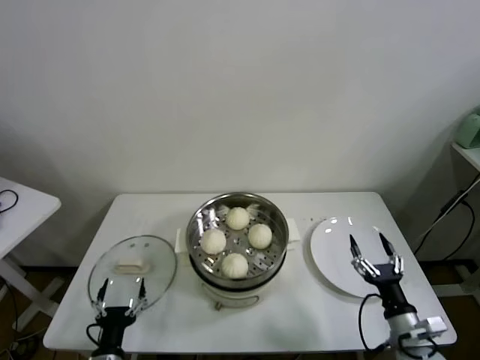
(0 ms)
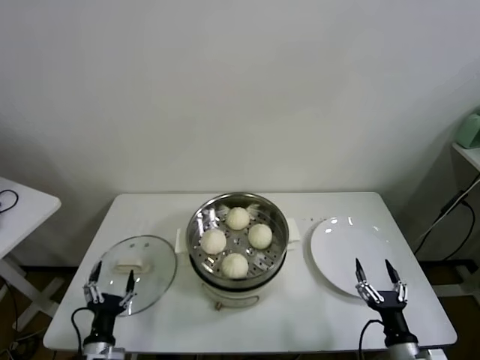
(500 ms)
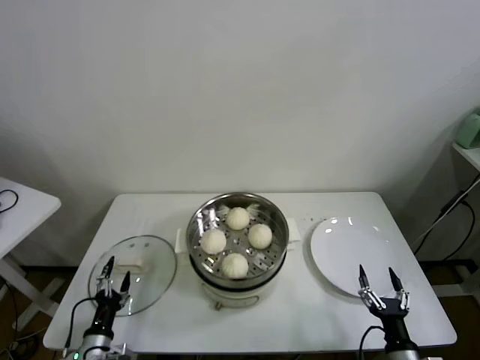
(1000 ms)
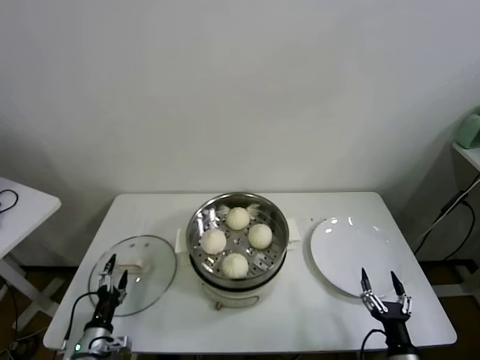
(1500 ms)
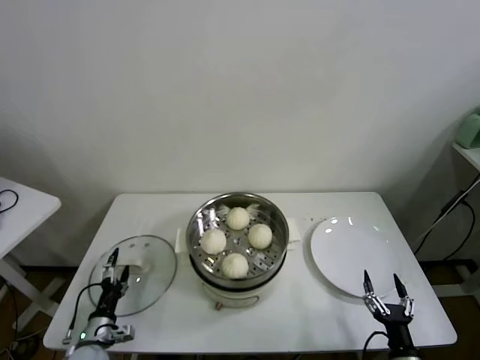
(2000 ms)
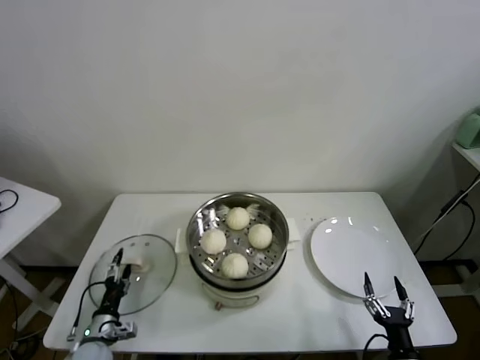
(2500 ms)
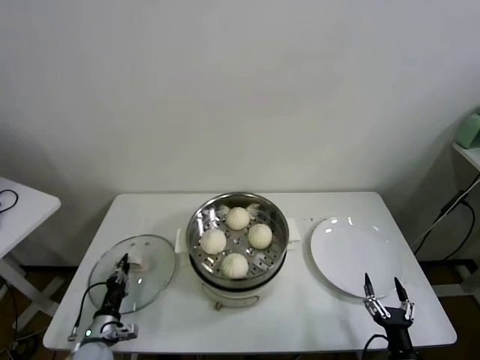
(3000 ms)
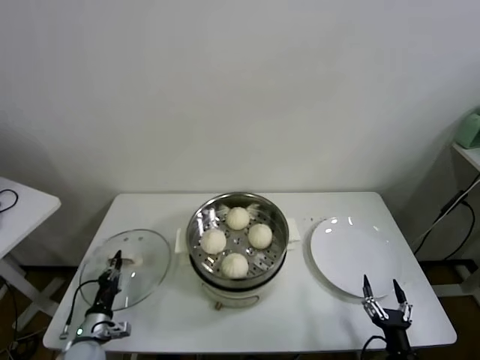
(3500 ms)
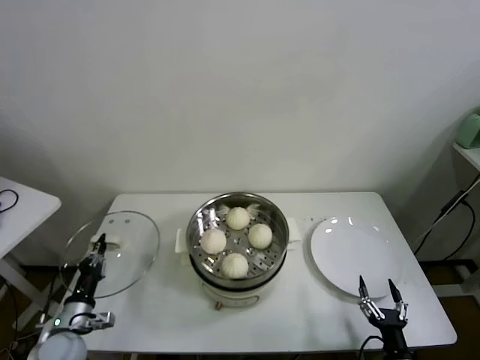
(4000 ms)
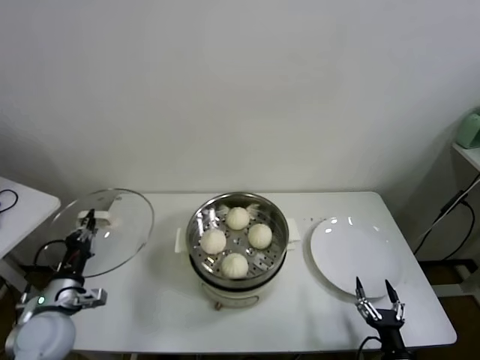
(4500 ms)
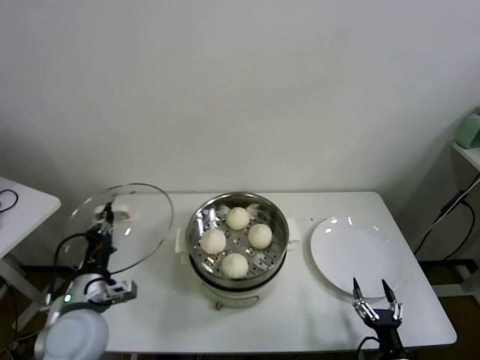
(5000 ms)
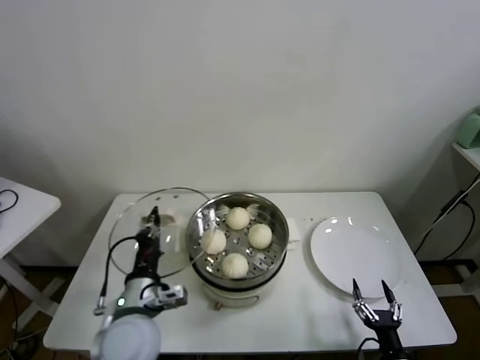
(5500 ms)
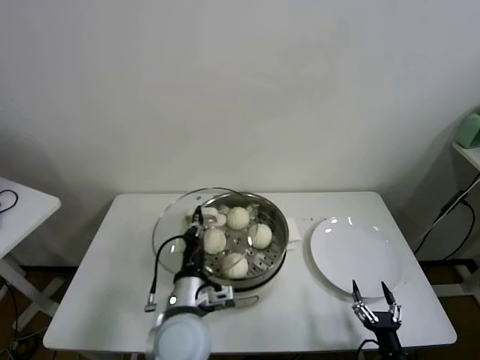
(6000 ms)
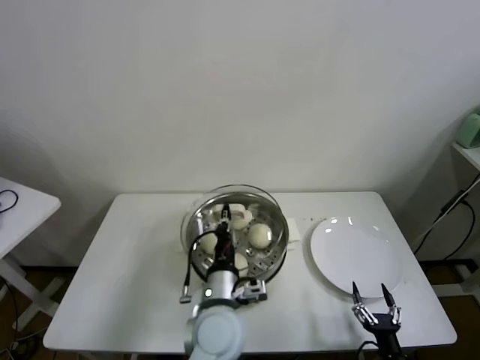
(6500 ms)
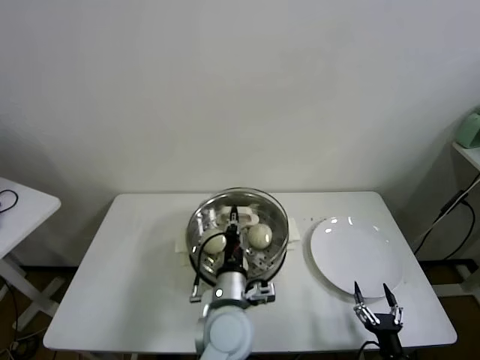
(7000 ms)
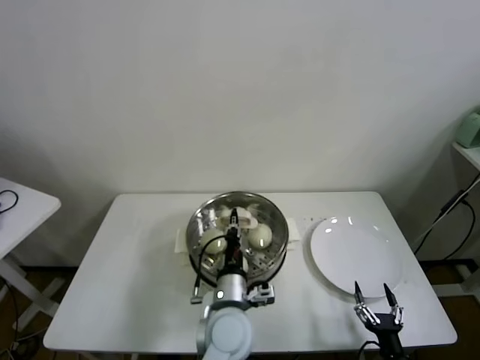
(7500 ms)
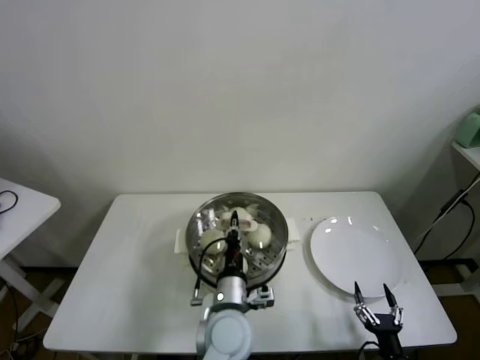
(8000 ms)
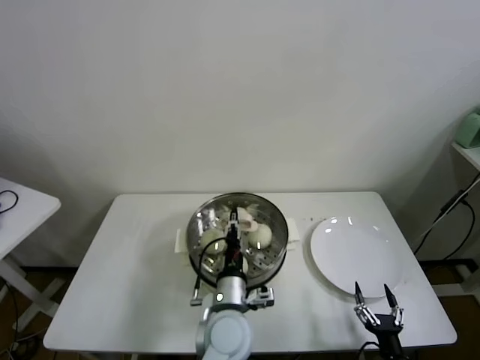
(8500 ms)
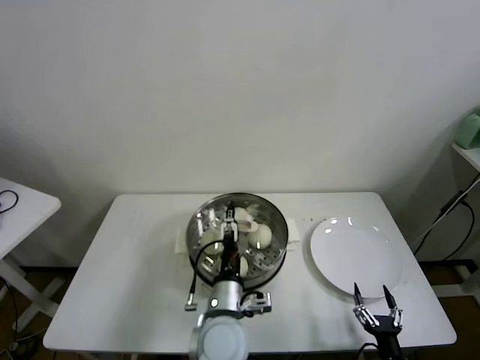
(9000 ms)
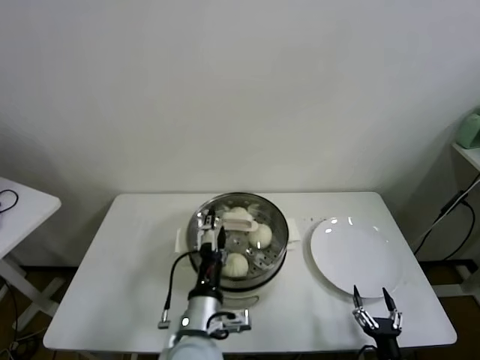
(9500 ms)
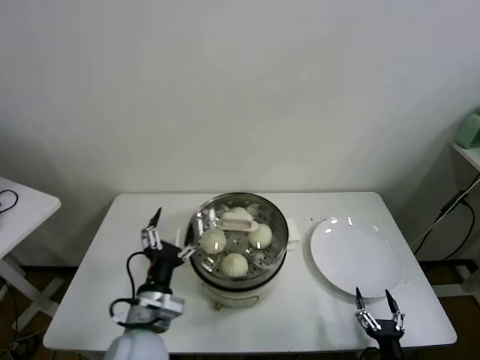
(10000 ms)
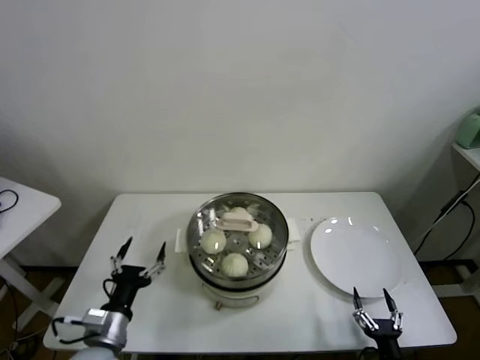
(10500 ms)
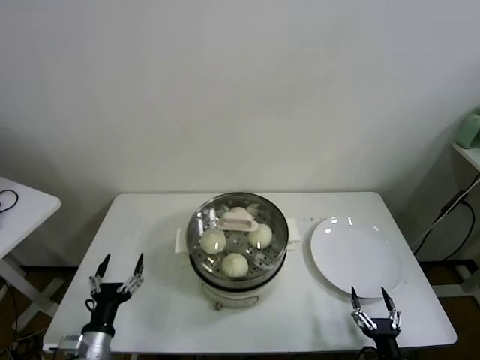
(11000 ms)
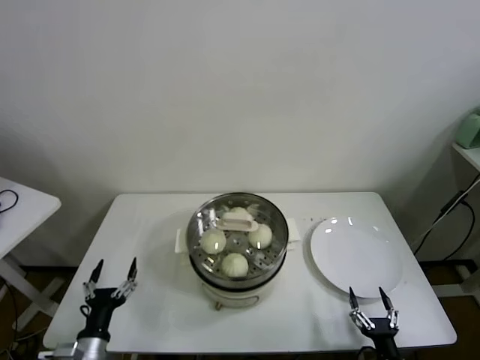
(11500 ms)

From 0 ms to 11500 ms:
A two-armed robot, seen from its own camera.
Task of the whole recording: take steamed baozi put them in steamer.
Step, from 0 ms to 3000 ms: Grasp the pot lid with left gripper.
Step, from 3500 ms to 8500 ms: Place the pot lid on the steamer with left gripper.
From 0 ms to 2000 ms: The left gripper shifts some 10 cm forward and to the left, while the right gripper travels downward and backward by approximately 10 cm.
From 2000 ms to 4000 ms: The left gripper shifts roughly 5 cm upward, and closes up.
From 4000 ms to 6000 ms: The left gripper is displaced to the right and upward by some 30 cm.
From 6000 ms to 7500 ms: The left gripper heads to the right, covering approximately 10 cm.
From 7500 ms to 9500 ms: The left gripper changes place by roughly 5 cm, and opens its fingers.
From 9500 ms to 11500 ms: The left gripper is displaced to the left and downward by approximately 30 cm.

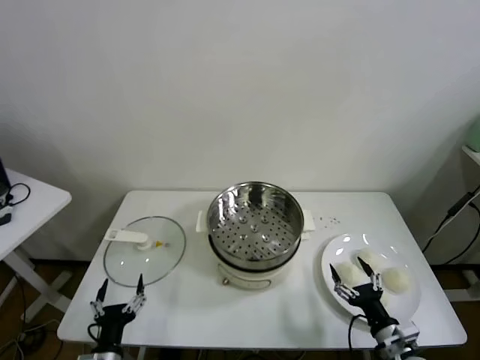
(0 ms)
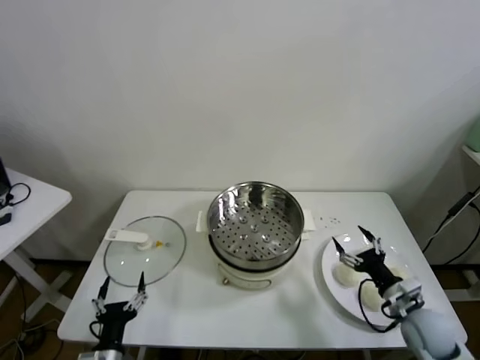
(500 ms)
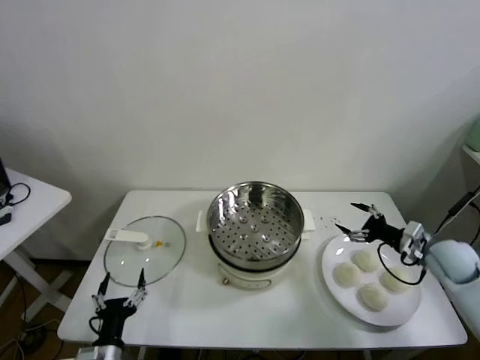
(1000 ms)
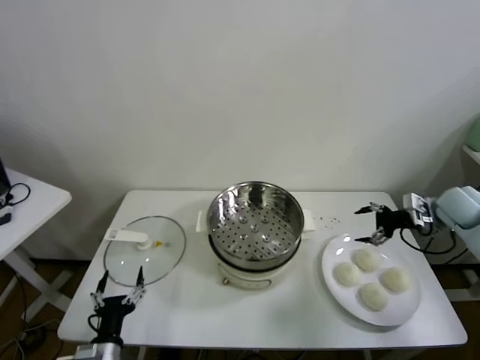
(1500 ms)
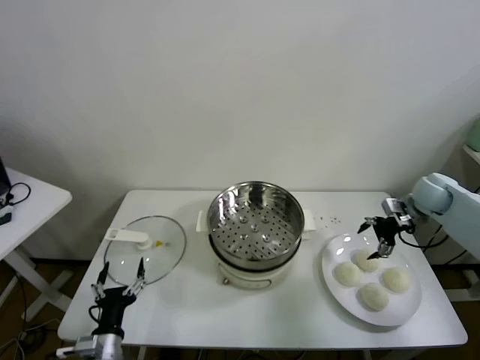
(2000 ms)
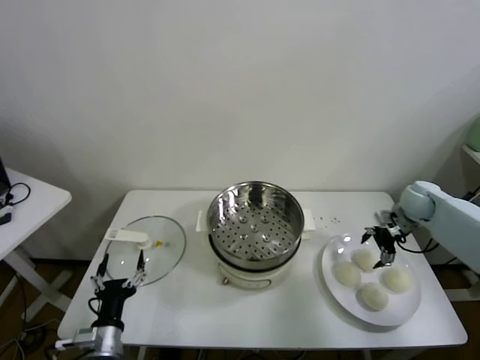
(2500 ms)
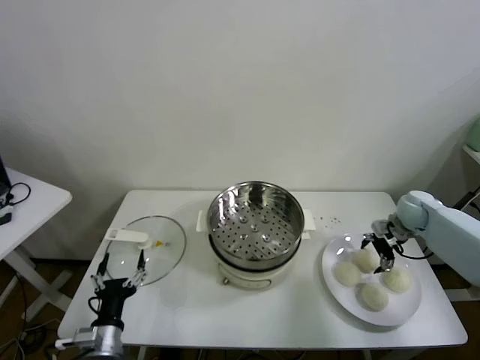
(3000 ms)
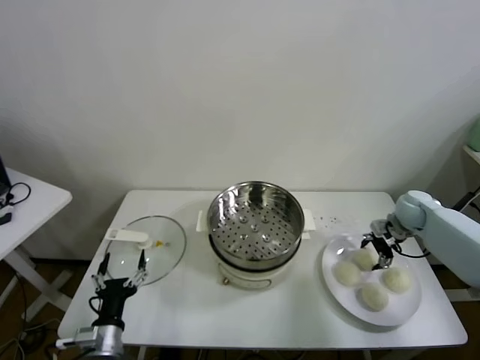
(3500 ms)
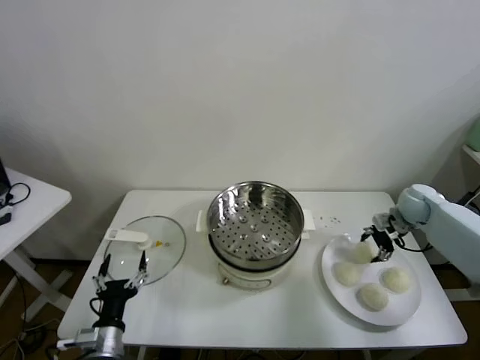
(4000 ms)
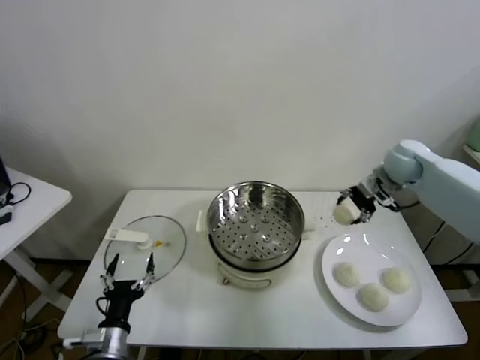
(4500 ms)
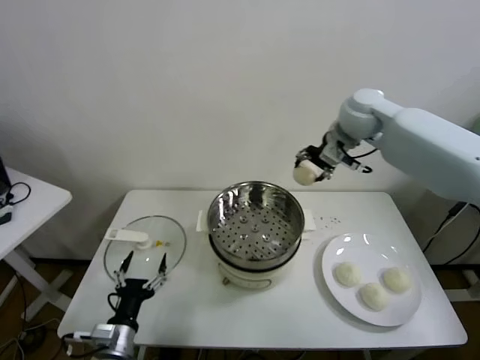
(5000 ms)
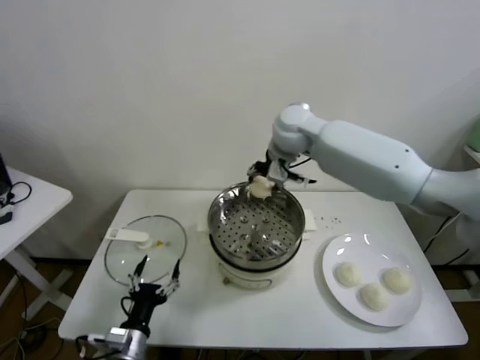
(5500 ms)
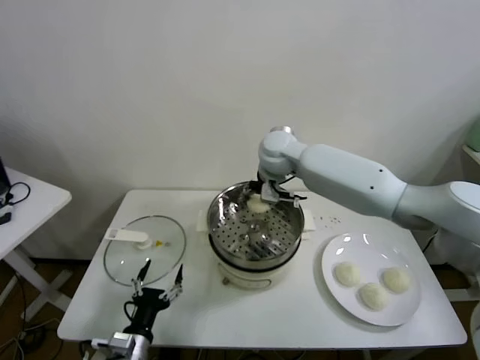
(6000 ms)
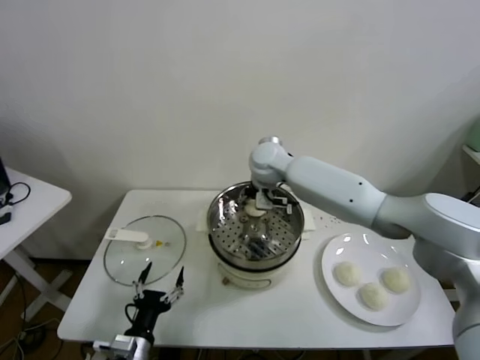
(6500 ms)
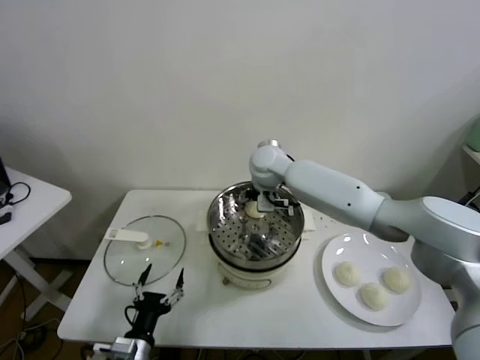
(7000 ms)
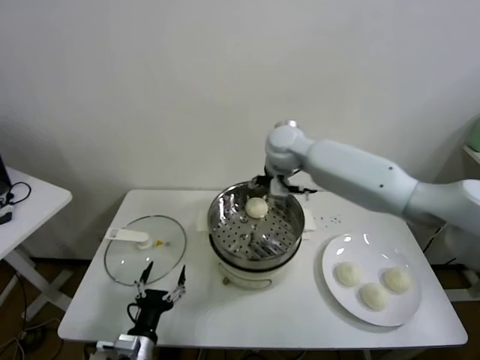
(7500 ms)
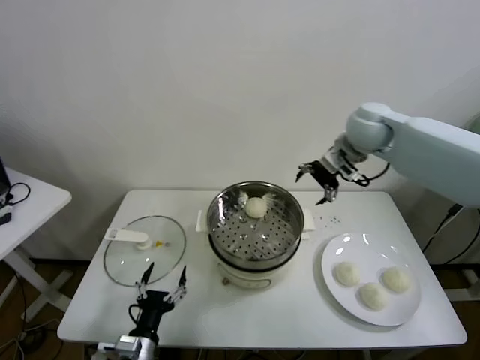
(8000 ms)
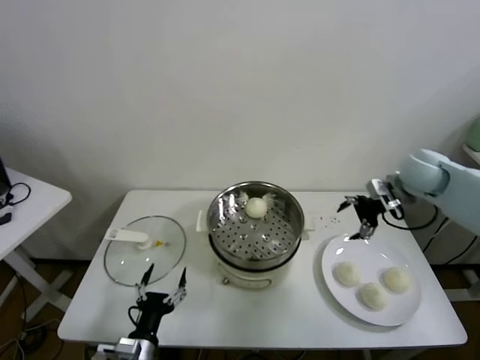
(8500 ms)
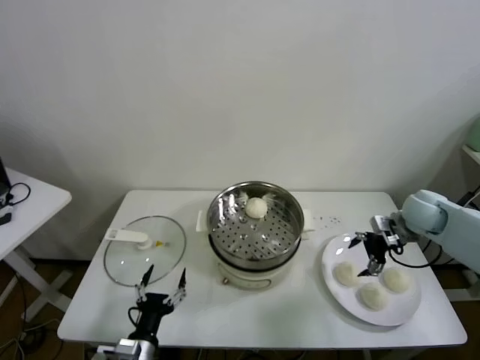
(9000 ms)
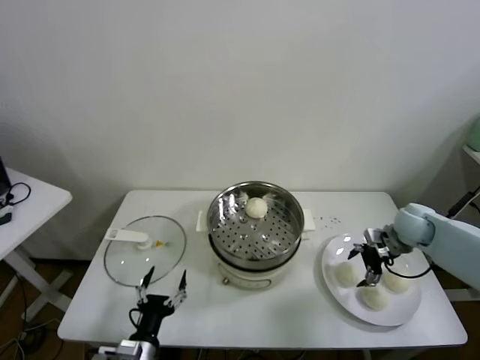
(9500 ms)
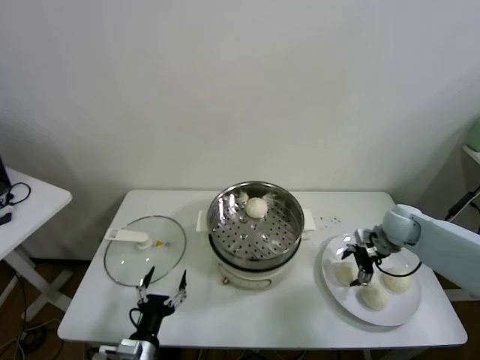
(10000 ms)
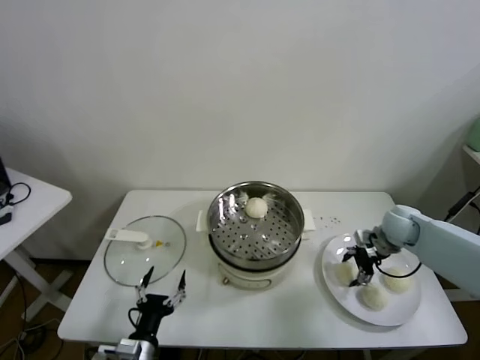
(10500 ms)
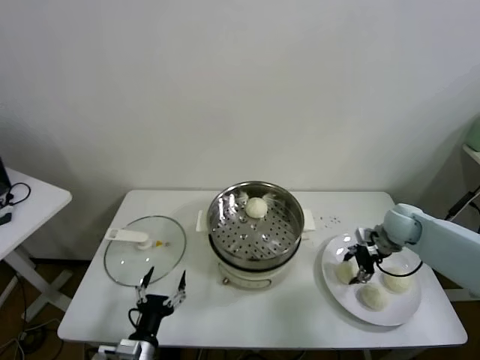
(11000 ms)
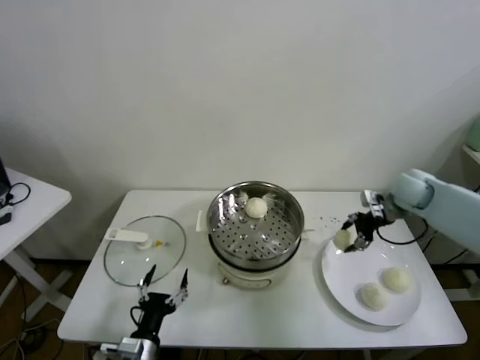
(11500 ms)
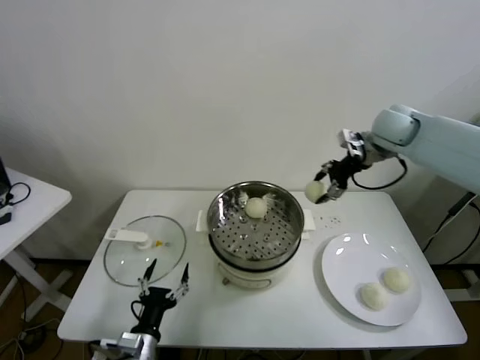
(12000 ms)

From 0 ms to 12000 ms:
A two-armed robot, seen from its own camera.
Task of the whole recording: take steamed baozi put them in steamer.
Step, from 0 ms to 3000 ms: Grasp the baozi in the plate with right gripper.
Step, from 4000 ms to 7000 ms: Place the baozi on the steamer with right gripper.
Step, from 7500 ms to 10000 ms: Grasp the baozi in the plate with right gripper.
From 2000 ms to 4000 ms: The right gripper closes.
From 4000 ms to 6000 ms: The right gripper heads to the left, covering about 35 cm.
From 6000 ms to 8000 ms: The right gripper goes approximately 20 cm to the right, and opens its fingers.
From 8000 ms to 10000 ms: The right gripper shifts roughly 25 cm downward and to the right.
From 10000 ms to 12000 ms: The right gripper moves upward, roughly 25 cm, and closes up.

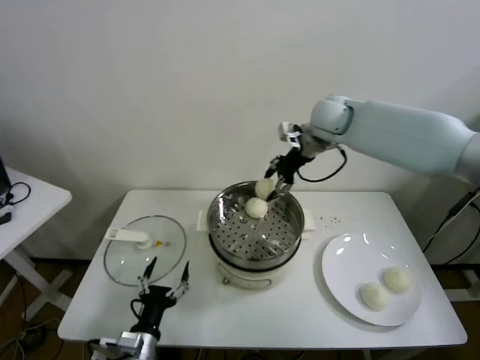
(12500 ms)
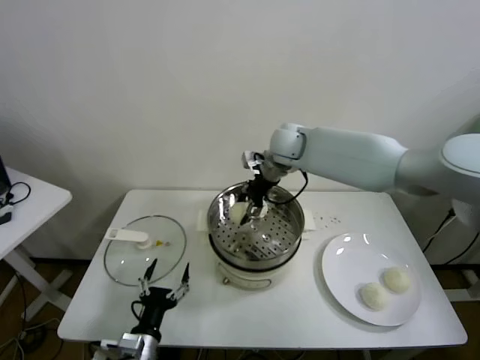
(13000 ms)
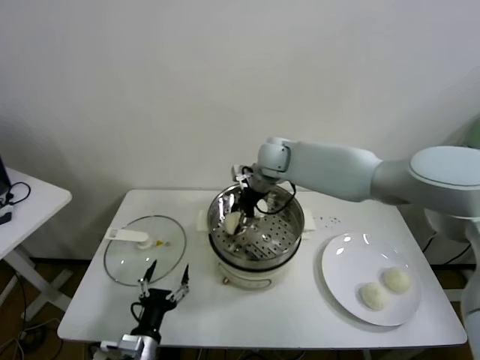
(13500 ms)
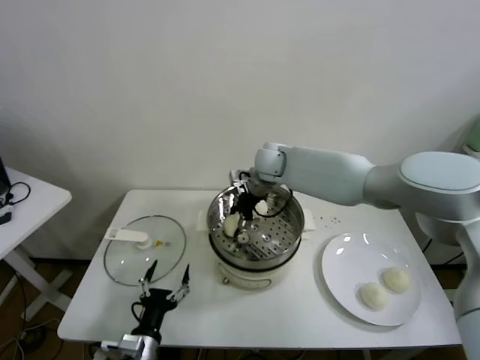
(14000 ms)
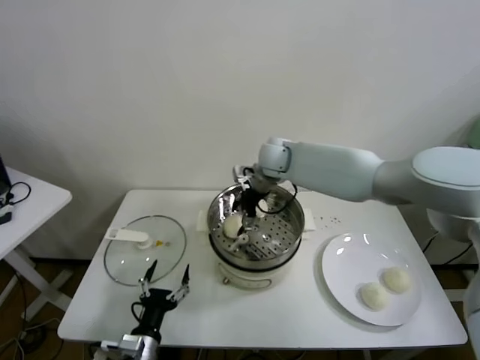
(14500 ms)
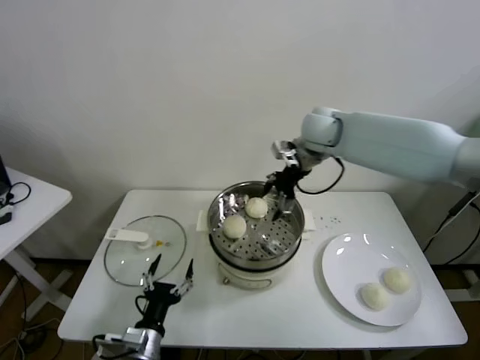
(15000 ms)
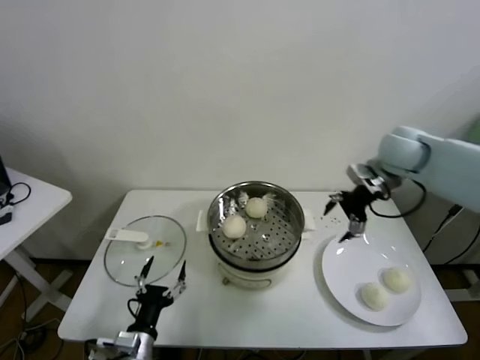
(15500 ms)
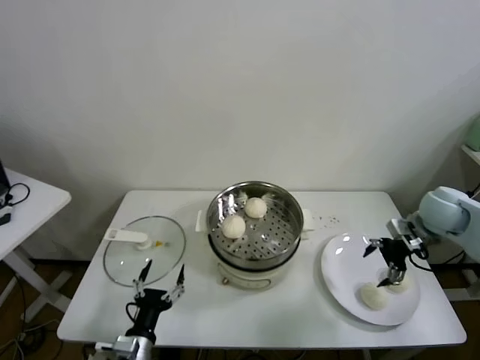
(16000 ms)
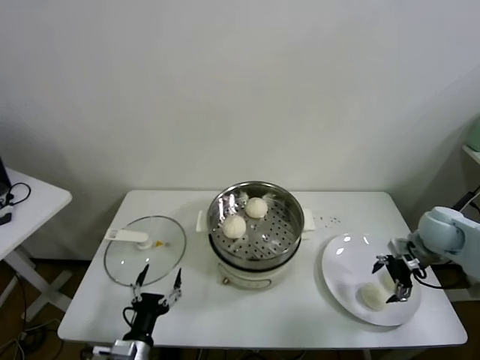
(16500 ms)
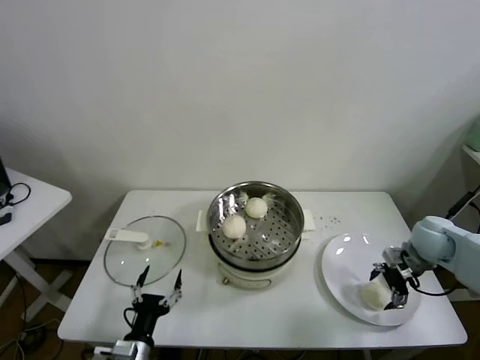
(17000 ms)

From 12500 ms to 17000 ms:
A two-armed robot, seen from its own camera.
Task of the whole recording: take steamed baozi put them in steamer.
From 12500 ms to 14500 ms: The right gripper shifts some 15 cm downward and to the left, and opens.
From 14500 ms to 17000 ms: The right gripper goes about 40 cm to the right and backward.
